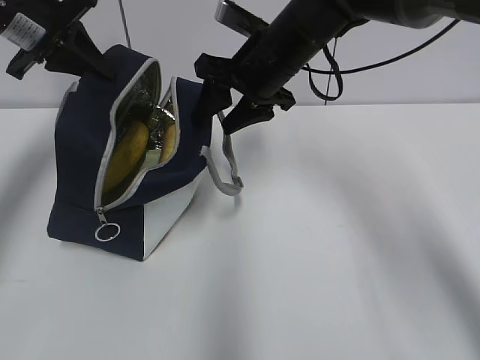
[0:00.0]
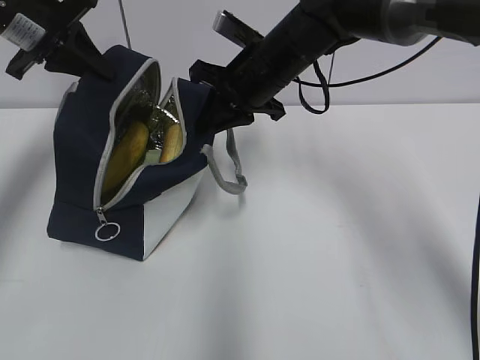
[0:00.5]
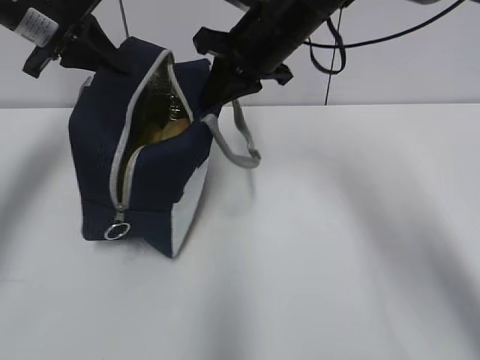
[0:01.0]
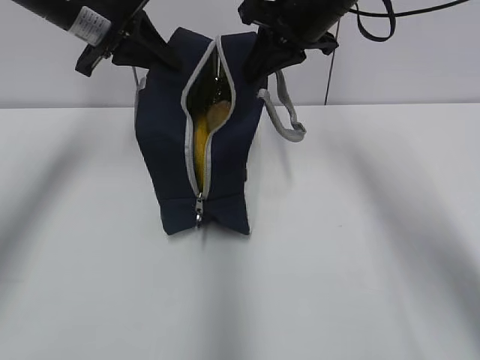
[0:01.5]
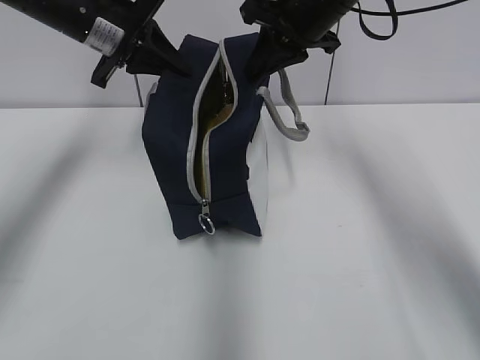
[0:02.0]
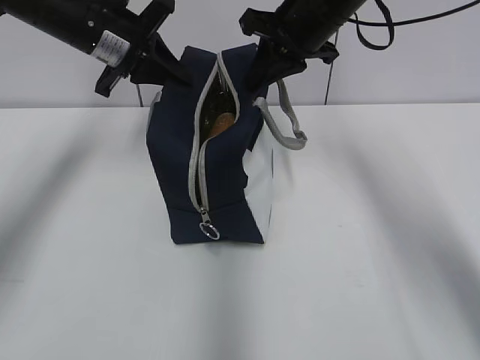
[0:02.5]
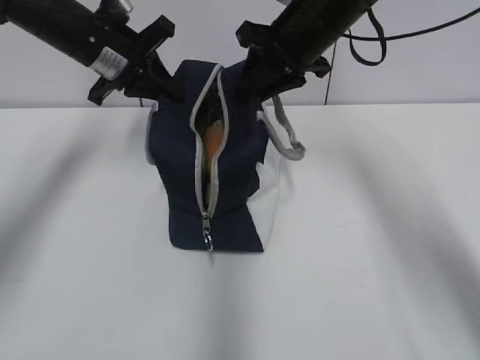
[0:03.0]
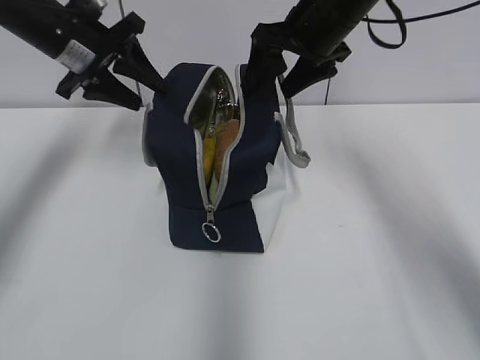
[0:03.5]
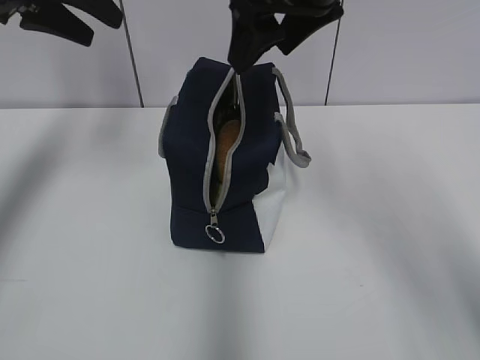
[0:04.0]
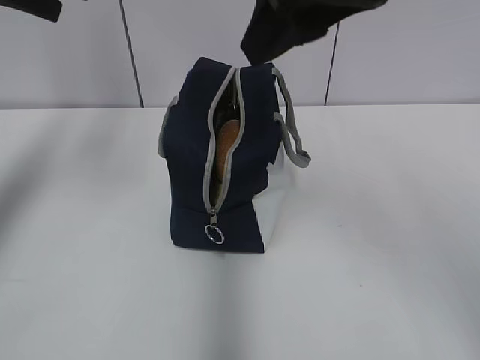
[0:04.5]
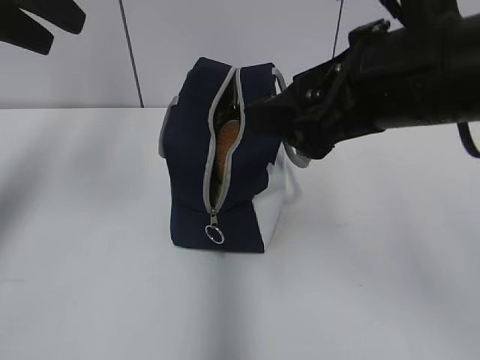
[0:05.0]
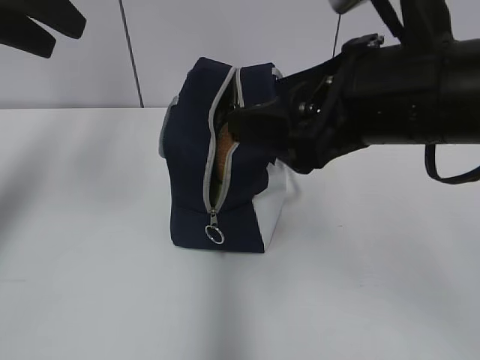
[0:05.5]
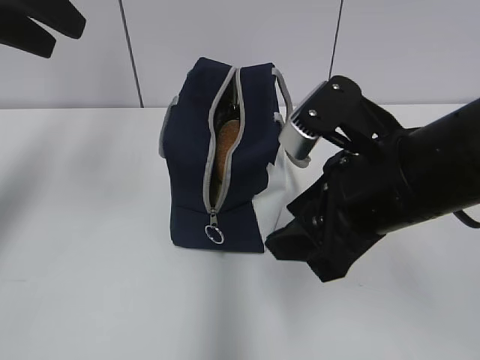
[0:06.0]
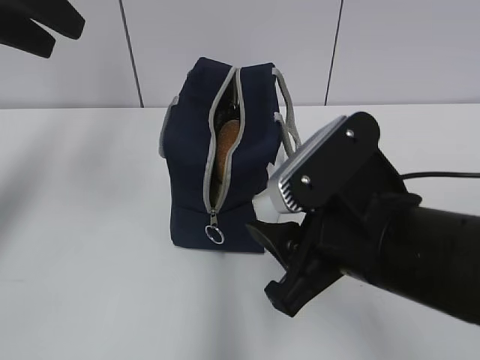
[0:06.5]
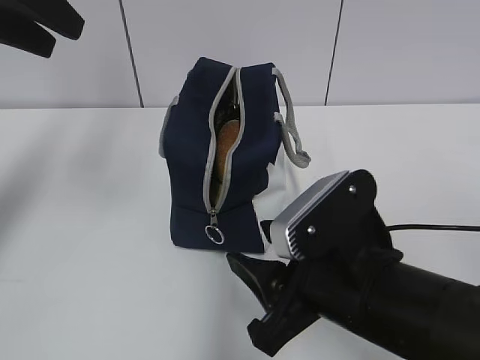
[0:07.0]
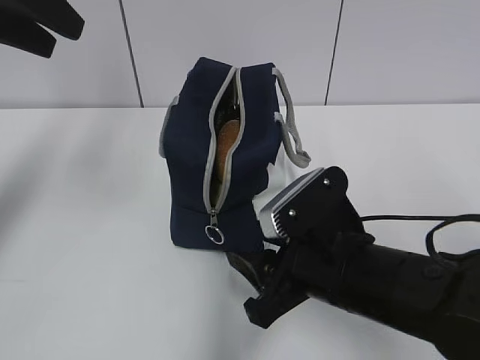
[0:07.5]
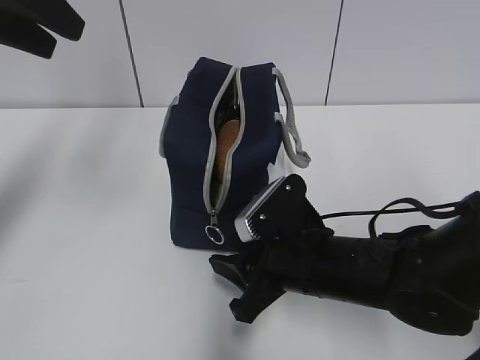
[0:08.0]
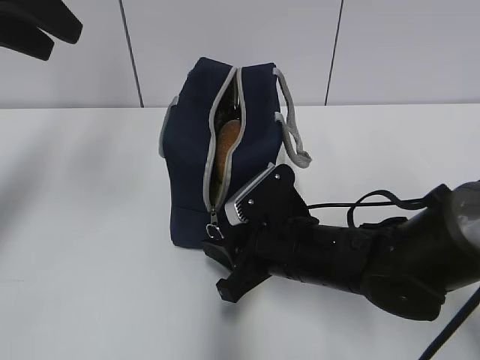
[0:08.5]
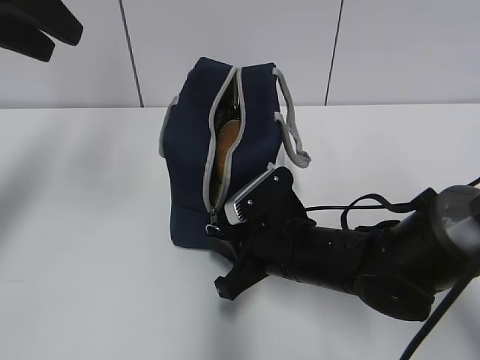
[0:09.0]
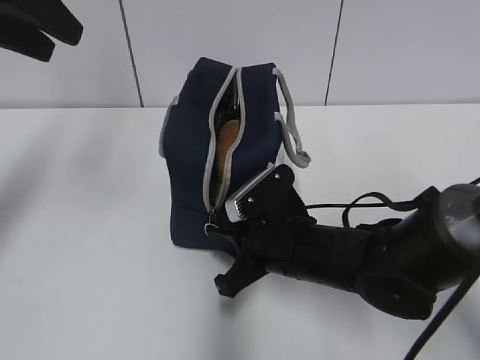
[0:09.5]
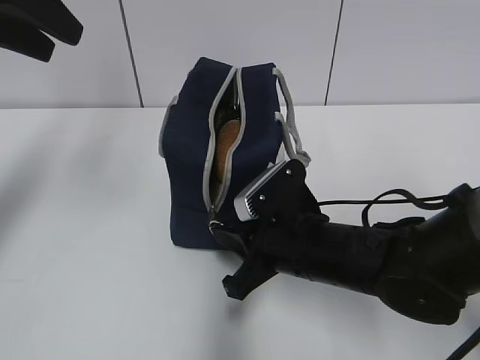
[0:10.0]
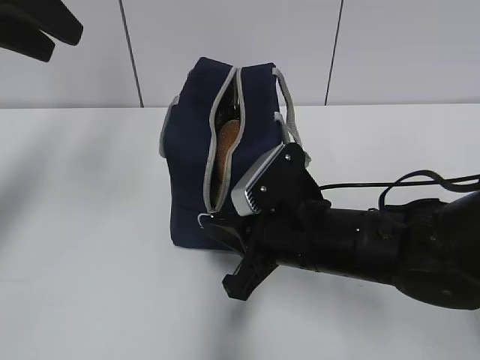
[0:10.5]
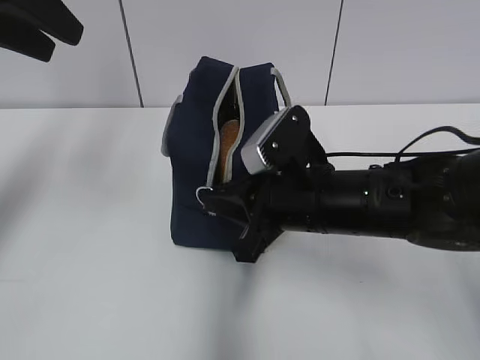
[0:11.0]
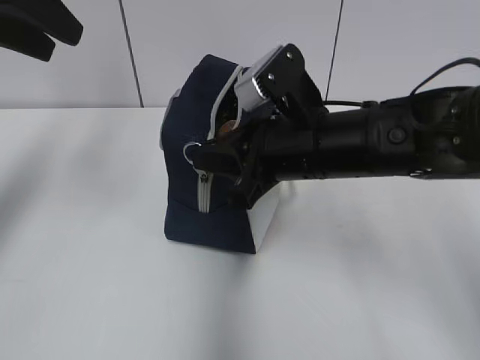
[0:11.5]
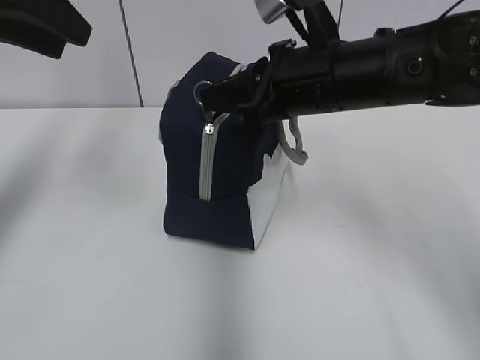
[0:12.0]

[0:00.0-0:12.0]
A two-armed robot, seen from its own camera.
Step, 0:00.5 to 0:01.0: Move the lunch bag to the left.
Step, 0:01.5 to 0:03.0: Move the lunch bag to the right.
0:00.0 to 0:02.0: The left gripper travels to the right by about 10 cm, while the right gripper travels upward by about 5 cm, and closes its fingers.
0:02.0 to 0:04.0: The right gripper heads backward and upward, covering roughly 10 cm, and opens; the left gripper heads upward and to the left, covering about 10 cm, and opens up.
0:04.0 to 0:06.0: The right gripper goes some 20 cm backward and downward; the left gripper shifts roughly 10 cm backward.
0:06.0 to 0:08.0: The right gripper is displaced downward by roughly 15 cm.
0:08.0 to 0:10.0: The right gripper closes.
0:10.0 to 0:12.0: The right gripper moves upward and forward, some 15 cm.

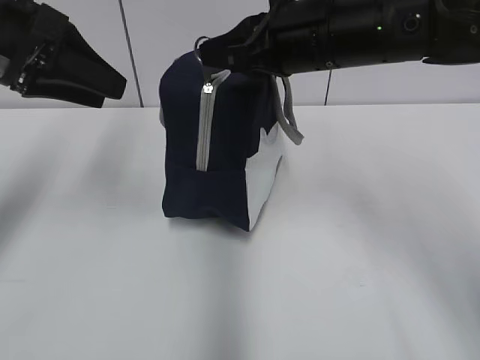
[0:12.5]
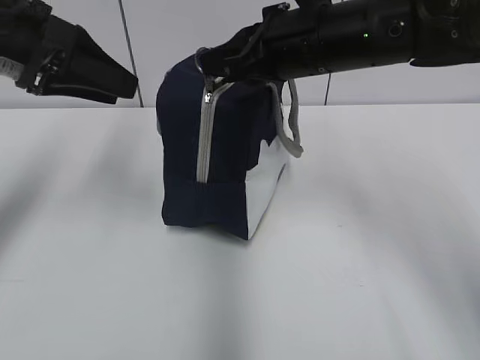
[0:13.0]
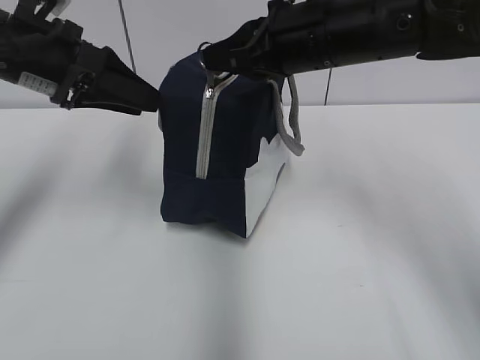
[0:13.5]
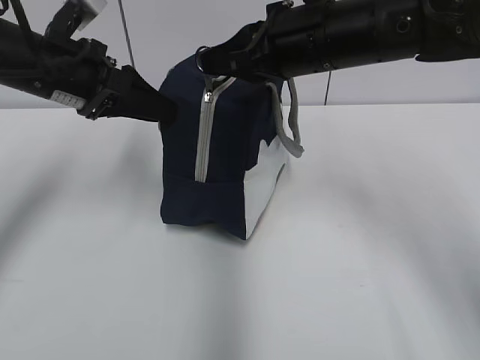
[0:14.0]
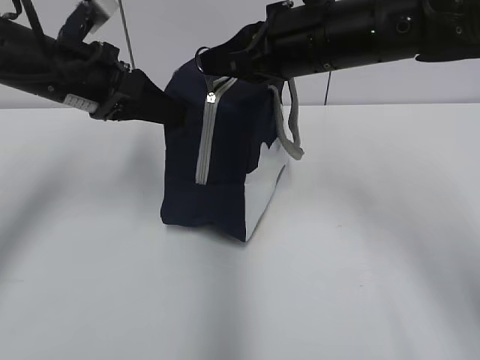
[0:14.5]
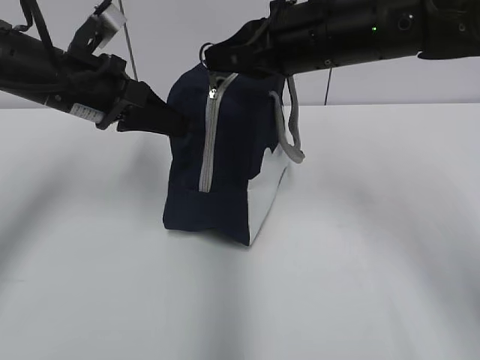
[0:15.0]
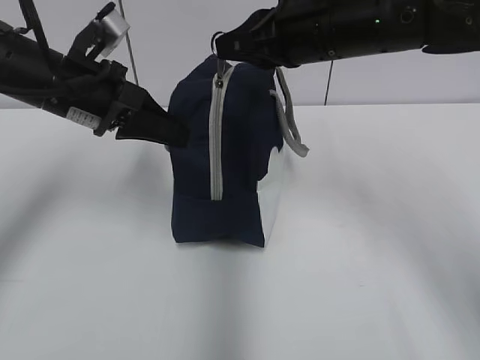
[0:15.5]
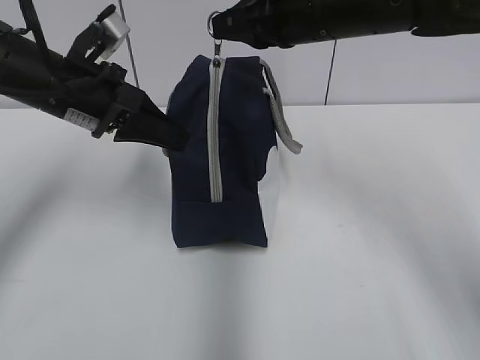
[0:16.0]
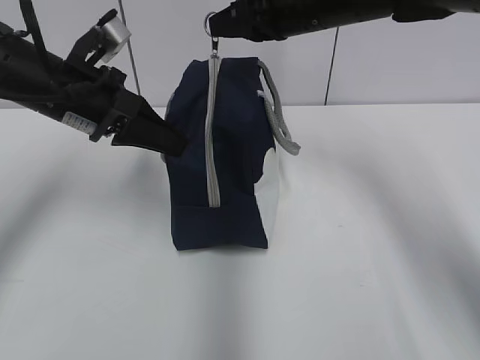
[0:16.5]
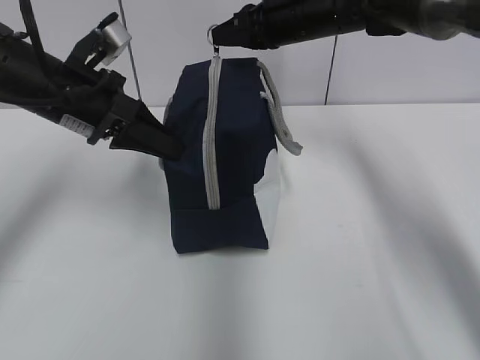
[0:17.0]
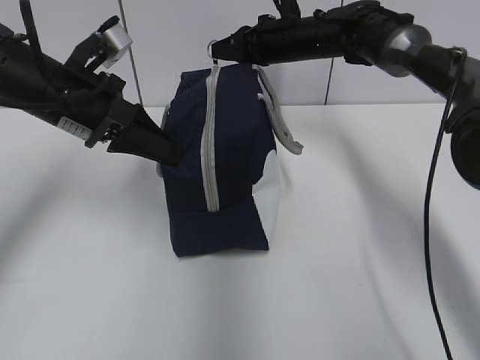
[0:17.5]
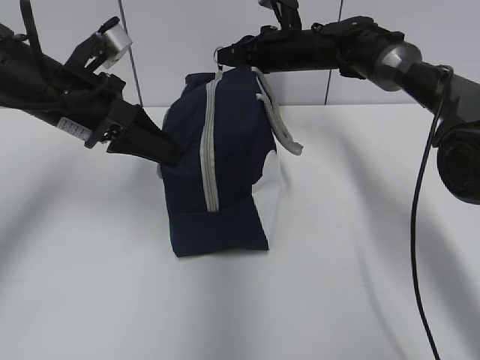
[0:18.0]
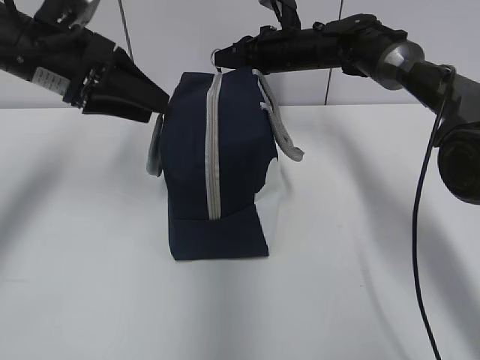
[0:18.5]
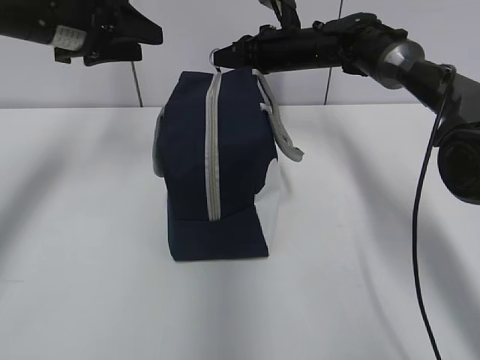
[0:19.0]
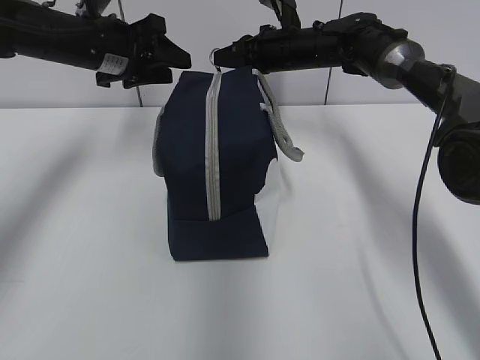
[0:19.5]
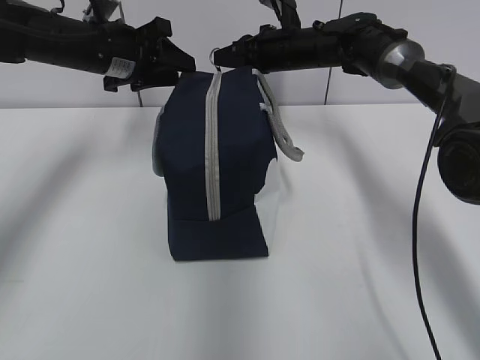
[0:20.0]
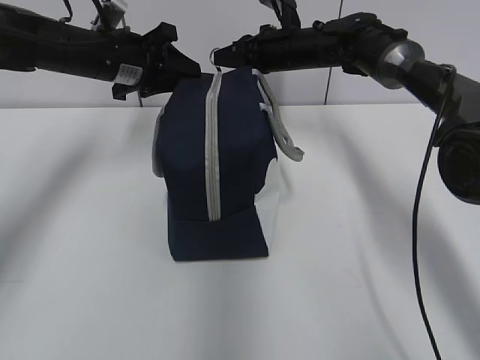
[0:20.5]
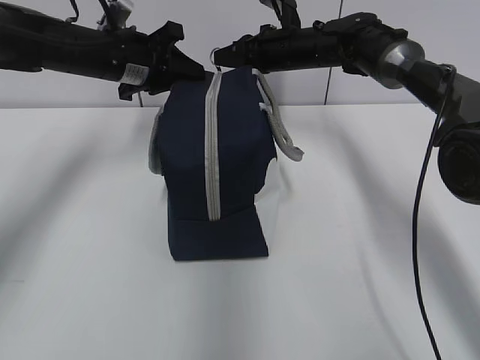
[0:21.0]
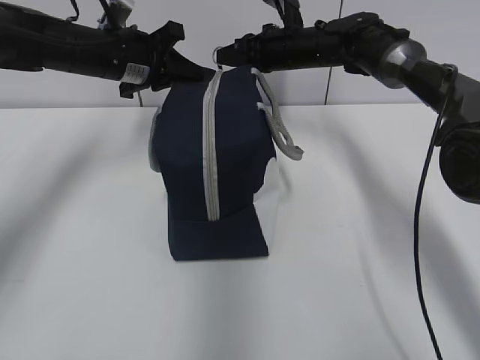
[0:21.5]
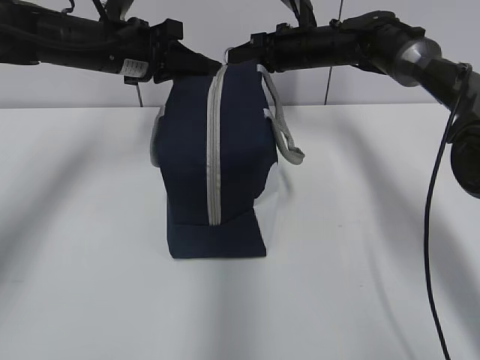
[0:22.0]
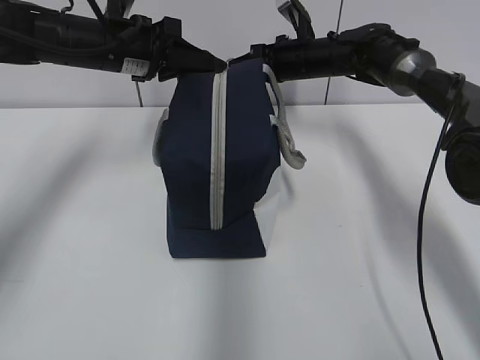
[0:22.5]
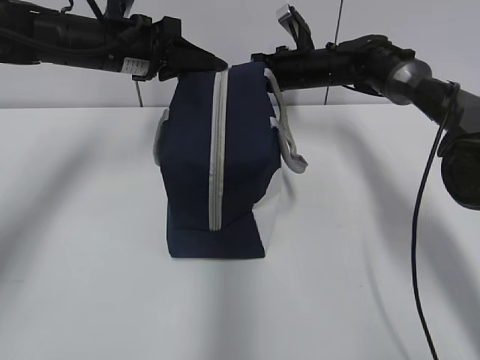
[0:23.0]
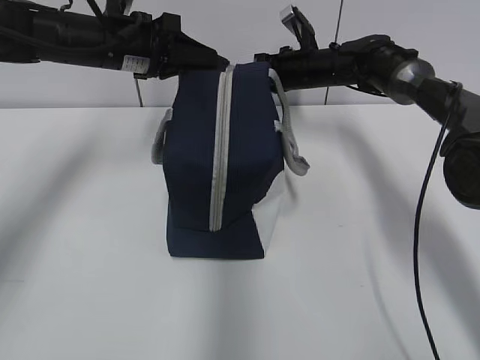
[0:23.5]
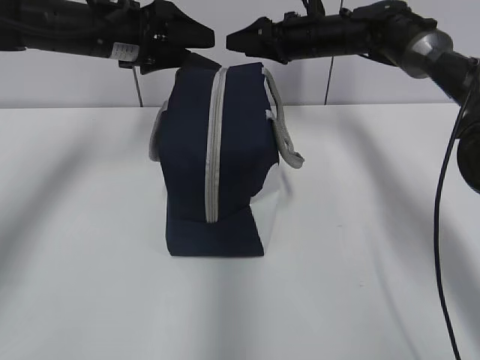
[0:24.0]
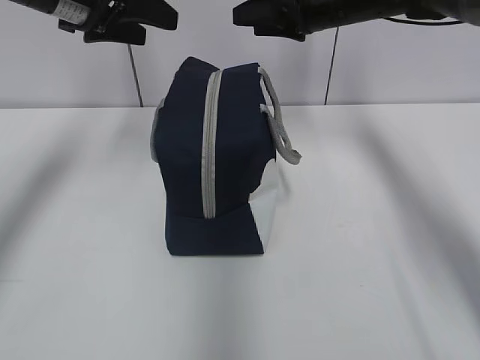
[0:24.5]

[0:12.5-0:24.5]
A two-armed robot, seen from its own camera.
Step, 0:12.5 to 0:14.5: Grab the lunch bag with your left hand.
Step, 0:15.0 to 0:22.5: Pull the zipper with your right hand.
0:12.5 to 0:14.5: The left gripper is displaced downward by some 5 cm.
0:14.5 to 0:16.5: The right gripper heads forward, covering roughly 5 cm, while the left gripper closes its fingers.
0:16.5 to 0:18.5: The right gripper goes about 15 cm forward and downward. The left gripper opens up.
0:18.5 to 0:20.5: The left gripper travels forward by about 10 cm.
0:20.5 to 0:22.5: The left gripper closes.
0:22.5 to 0:24.5: The right gripper travels upward and backward by about 10 cm, and opens its fingers. Meanwhile the left gripper heads upward, covering some 10 cm, and opens.

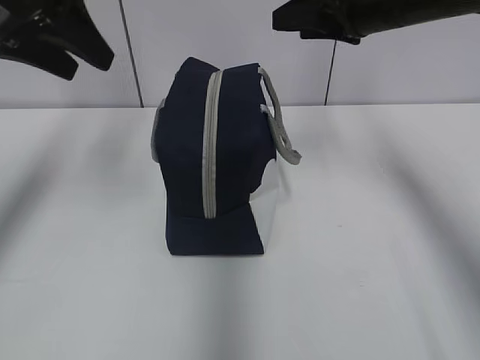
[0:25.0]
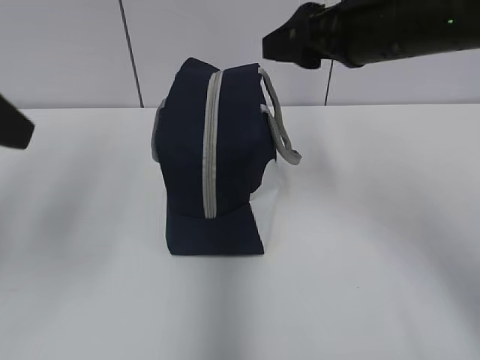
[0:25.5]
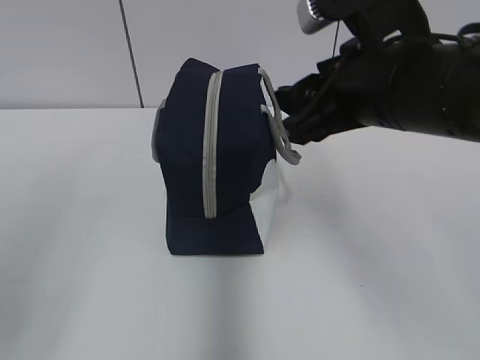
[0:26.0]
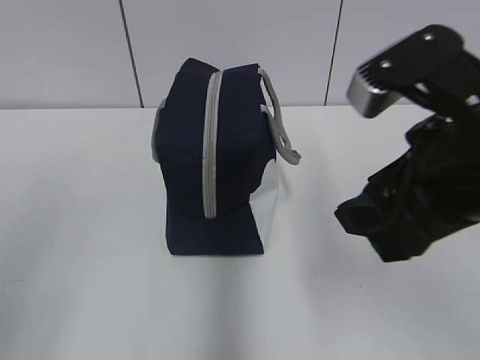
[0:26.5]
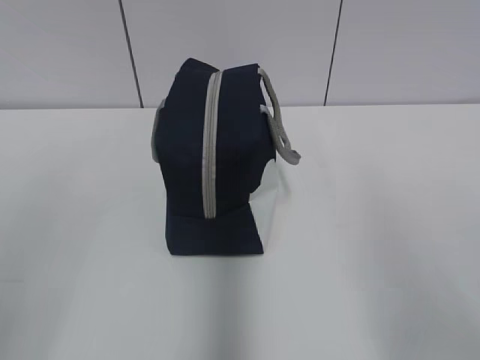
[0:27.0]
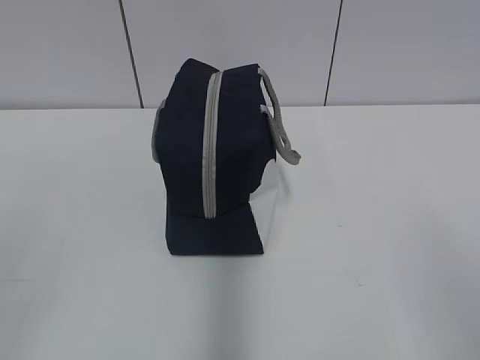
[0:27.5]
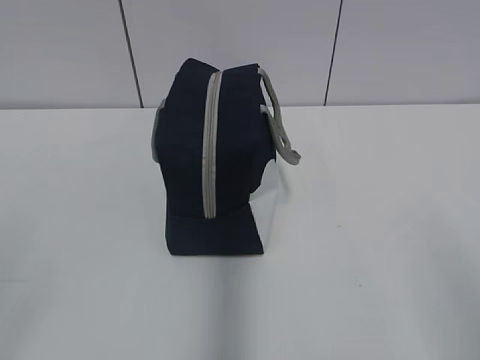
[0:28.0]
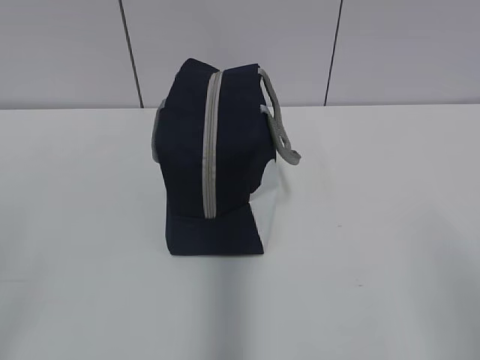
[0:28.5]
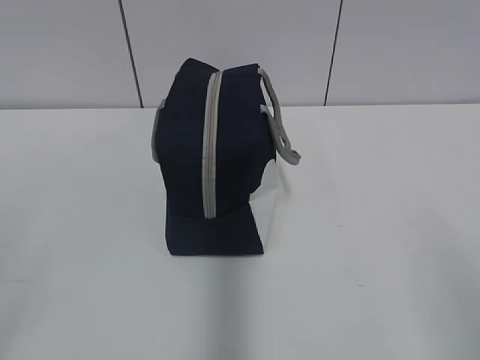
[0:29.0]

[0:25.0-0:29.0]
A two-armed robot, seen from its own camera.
0:25.0 to 0:27.0: Both grippers travel together backward, about 30 cm.
